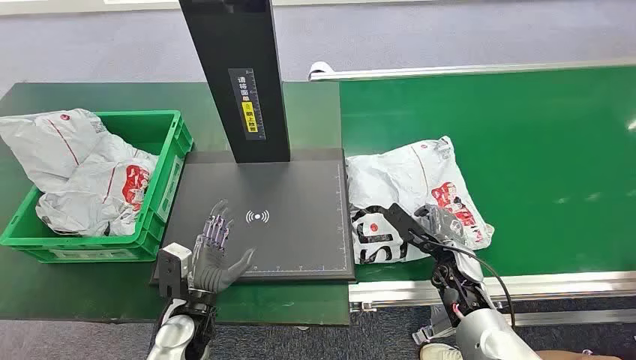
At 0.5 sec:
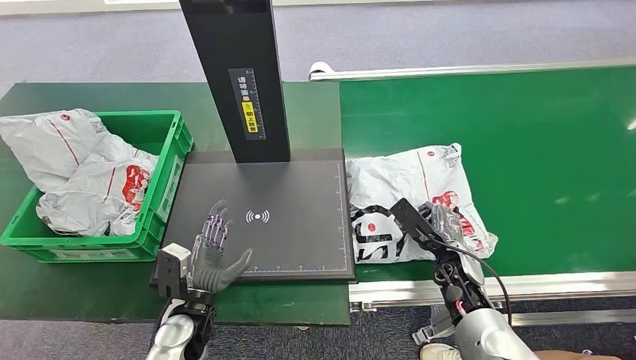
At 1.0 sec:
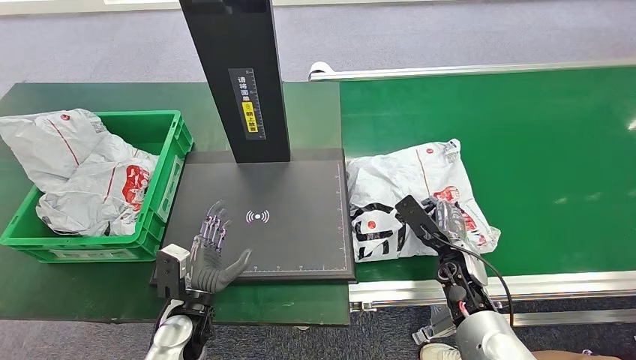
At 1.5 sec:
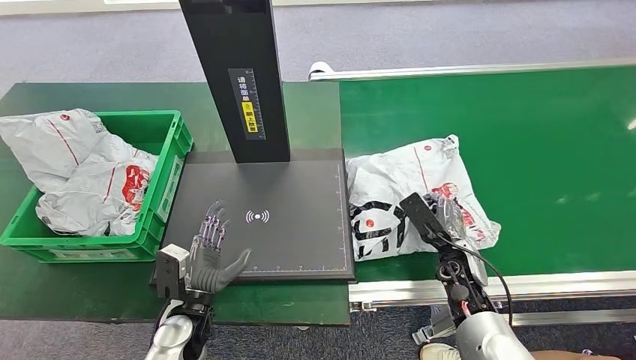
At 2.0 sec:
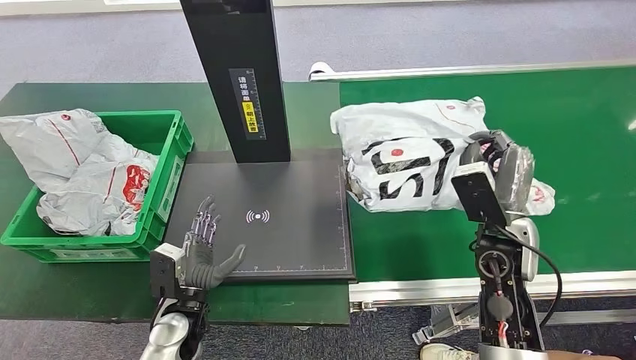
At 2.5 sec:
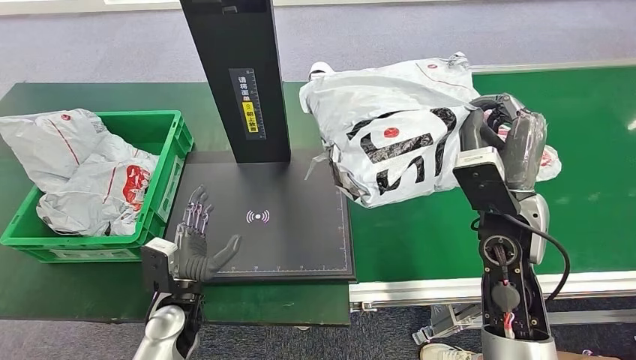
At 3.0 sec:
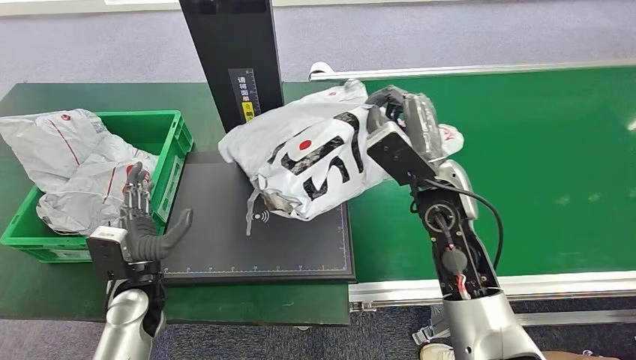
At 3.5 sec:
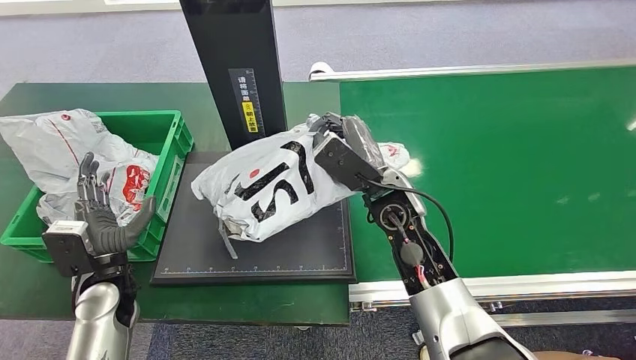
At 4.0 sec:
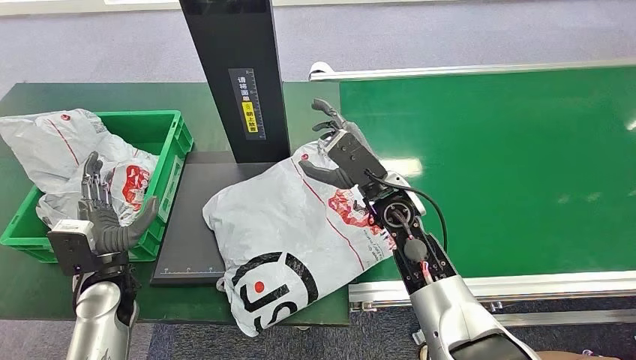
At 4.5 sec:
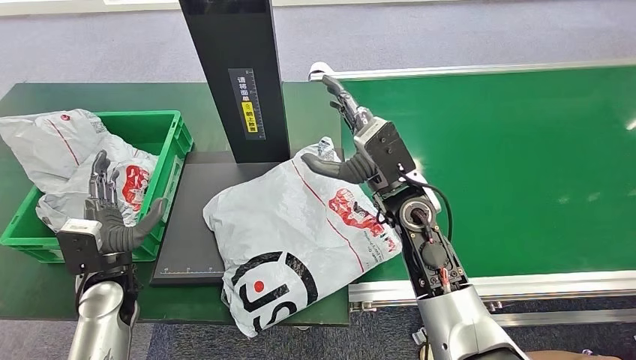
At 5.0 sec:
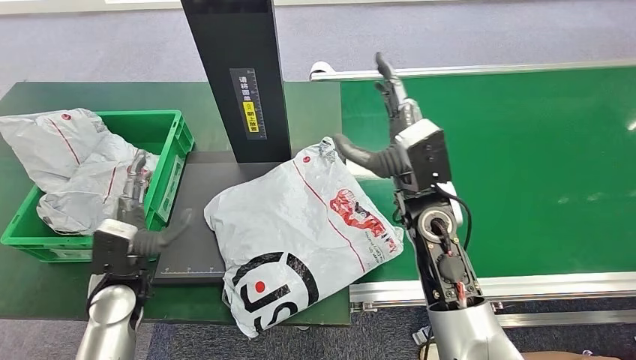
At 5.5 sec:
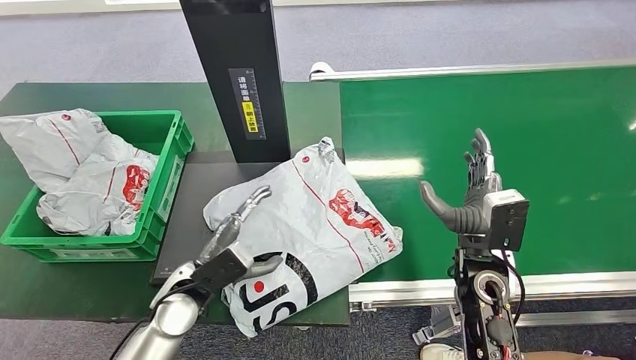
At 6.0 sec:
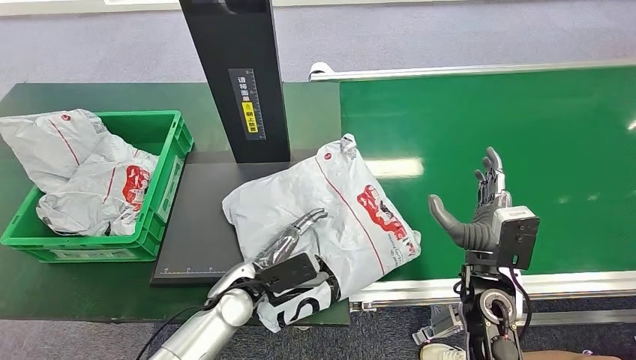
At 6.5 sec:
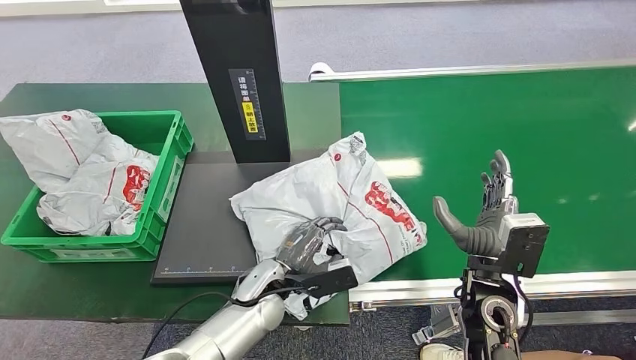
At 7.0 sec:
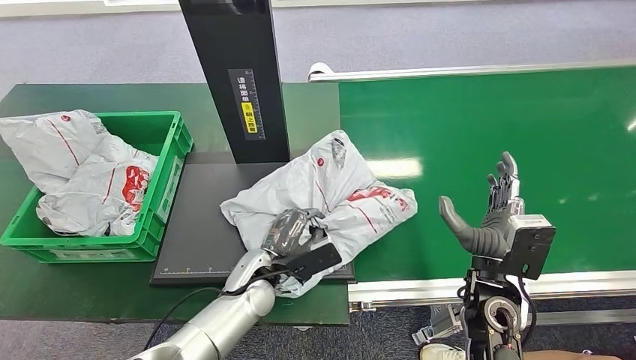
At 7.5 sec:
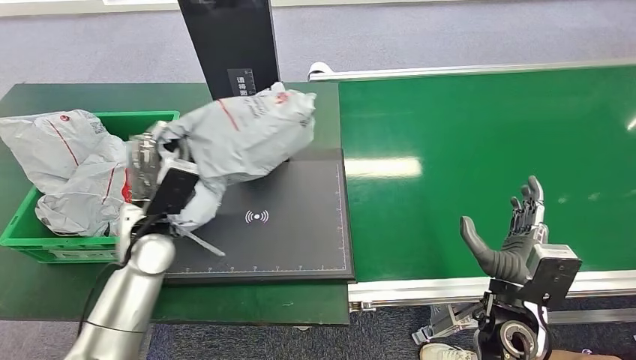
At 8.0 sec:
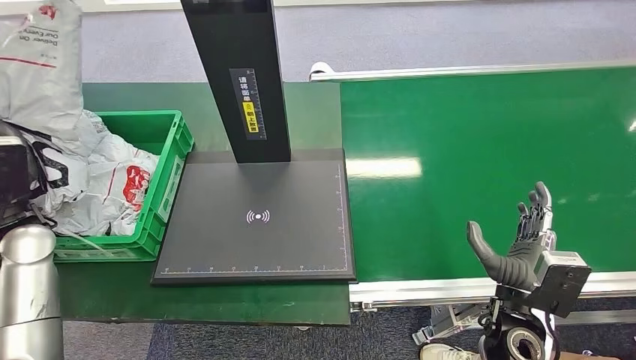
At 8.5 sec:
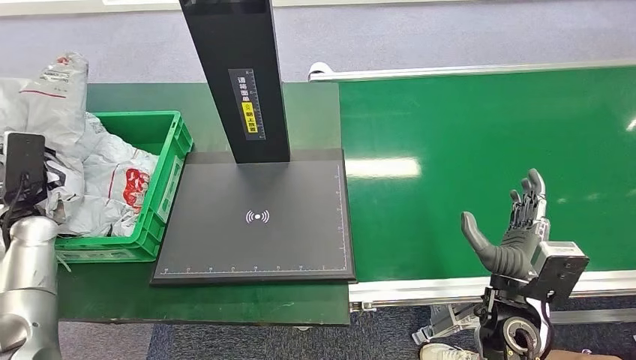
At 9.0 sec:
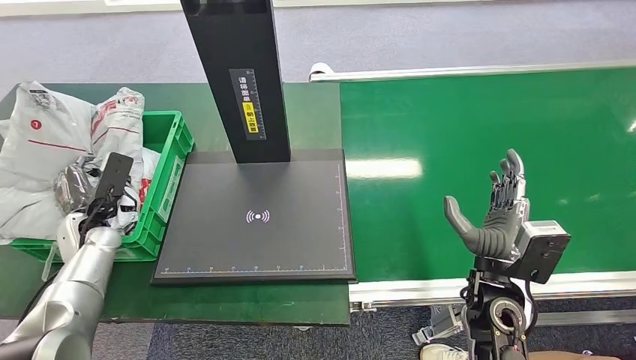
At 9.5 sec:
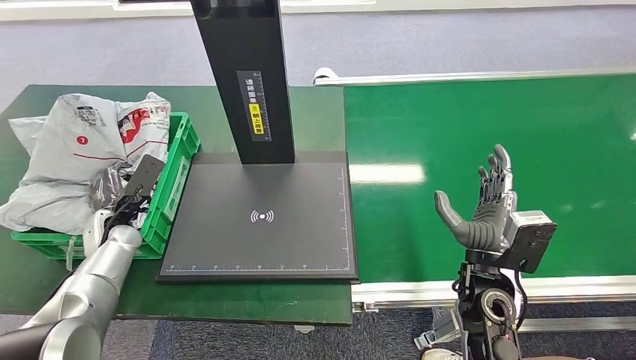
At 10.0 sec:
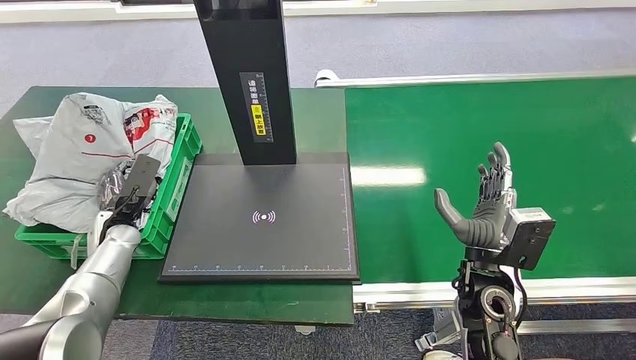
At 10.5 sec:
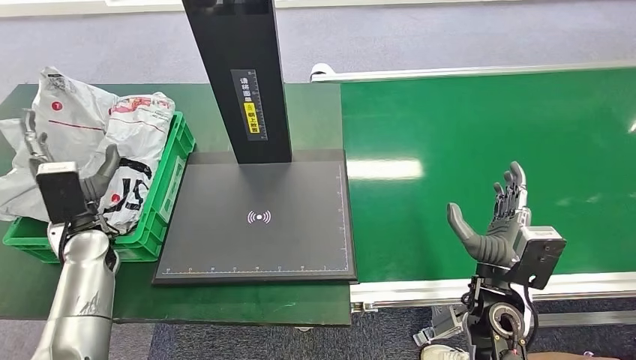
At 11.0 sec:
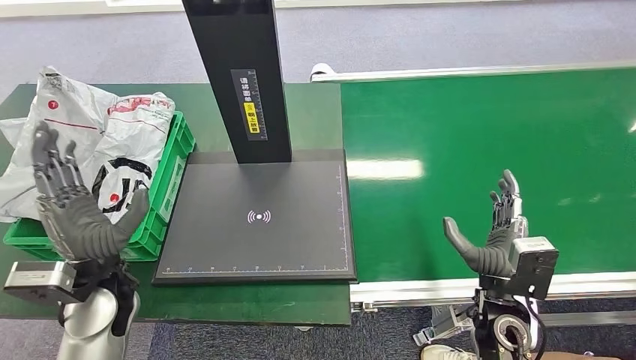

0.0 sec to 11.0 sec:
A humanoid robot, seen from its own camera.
Step, 0.0 sec to 2.5 sec: Pick up the package from the conveyor belt.
Step, 3.0 sec to 5.0 sec: Place the package onto the inbound machine.
Step, 5.5 sec to 7.5 sec: Pick up the package from the inbound machine.
Step, 8.5 sec to 11.0 sec: Place the package into the parcel locker.
9.0 sec to 11.0 sec: The left hand moves to the right, backward and upward, about 20 cm.
